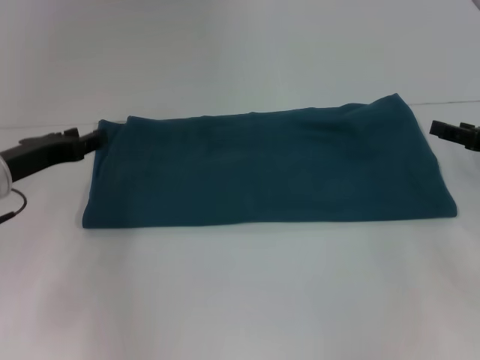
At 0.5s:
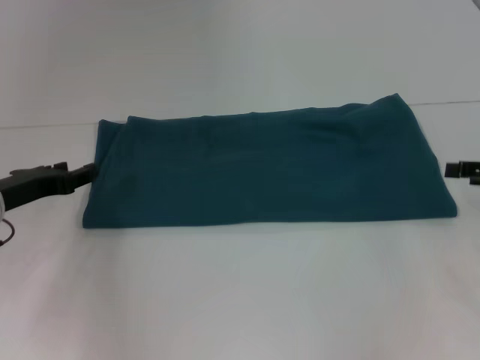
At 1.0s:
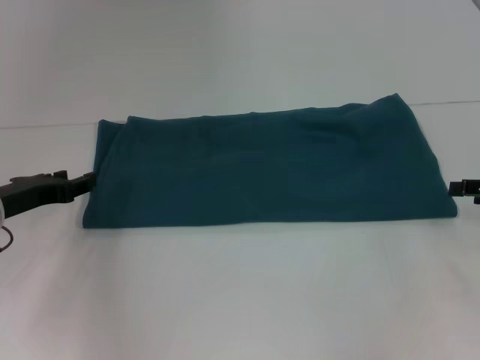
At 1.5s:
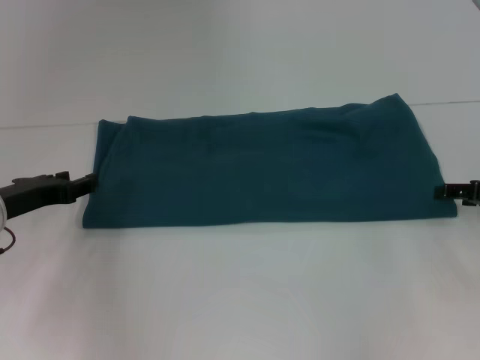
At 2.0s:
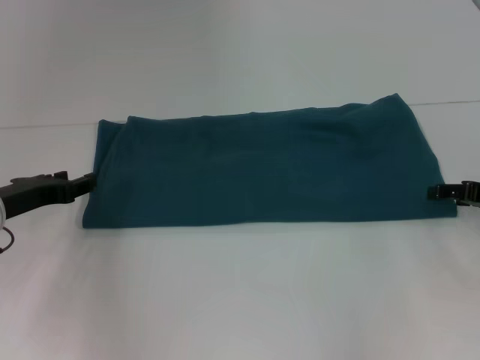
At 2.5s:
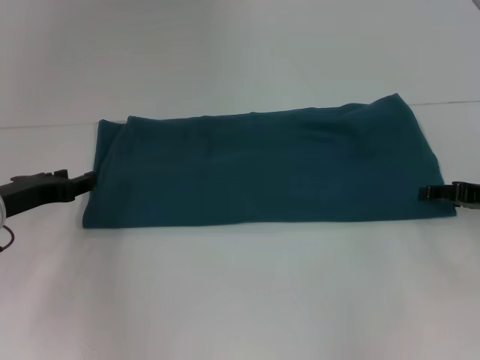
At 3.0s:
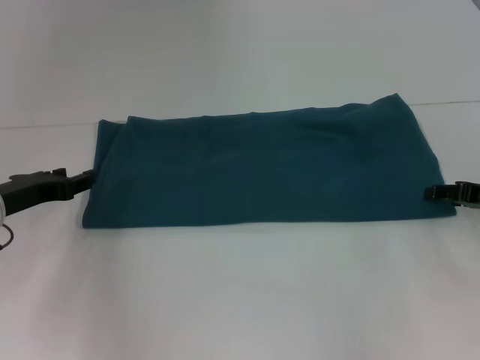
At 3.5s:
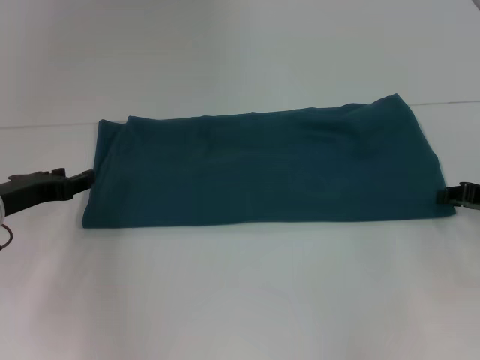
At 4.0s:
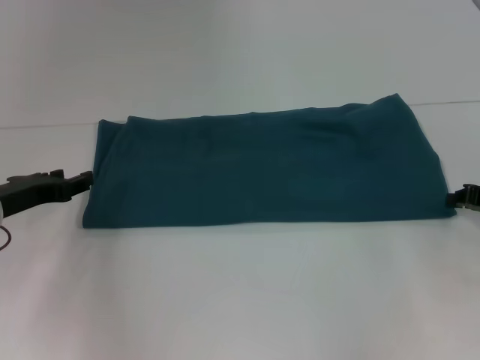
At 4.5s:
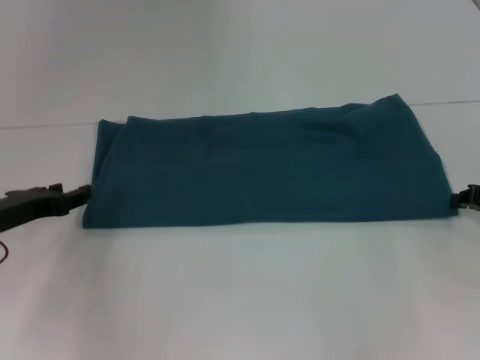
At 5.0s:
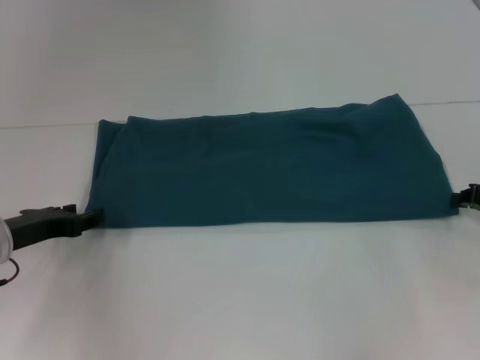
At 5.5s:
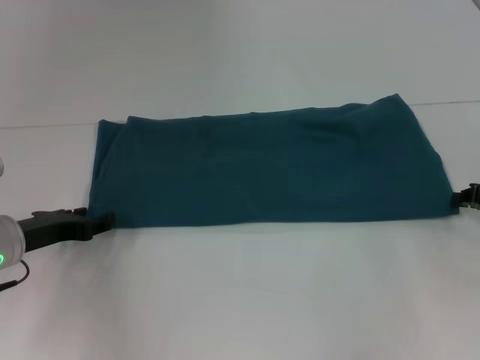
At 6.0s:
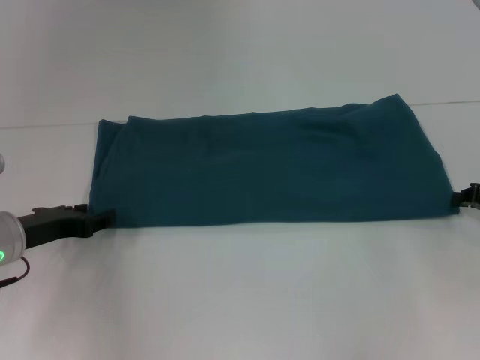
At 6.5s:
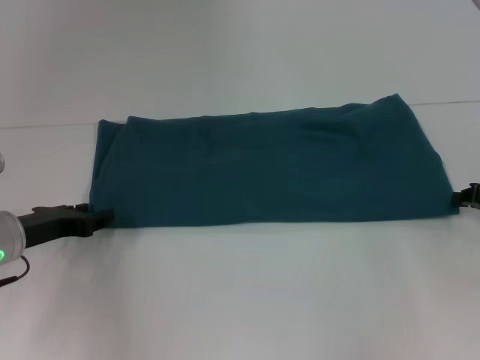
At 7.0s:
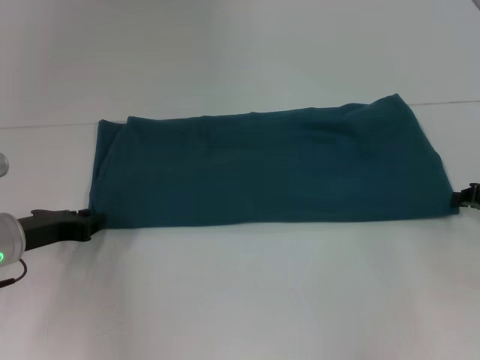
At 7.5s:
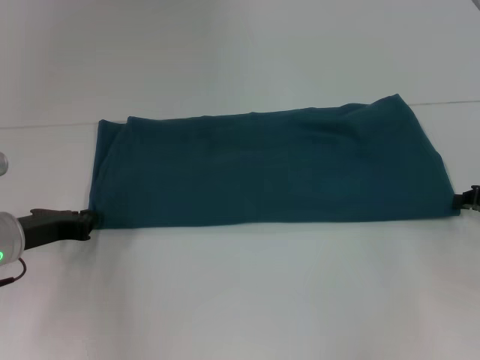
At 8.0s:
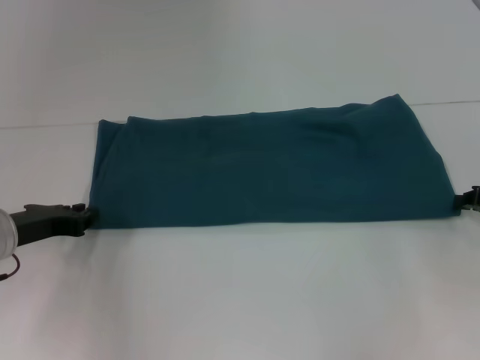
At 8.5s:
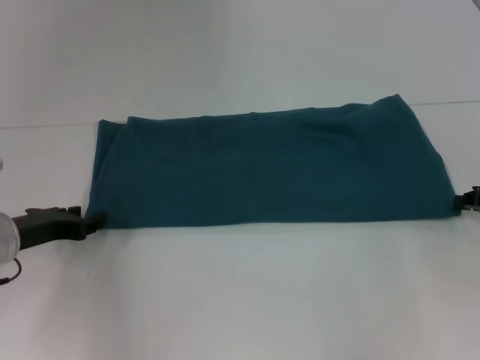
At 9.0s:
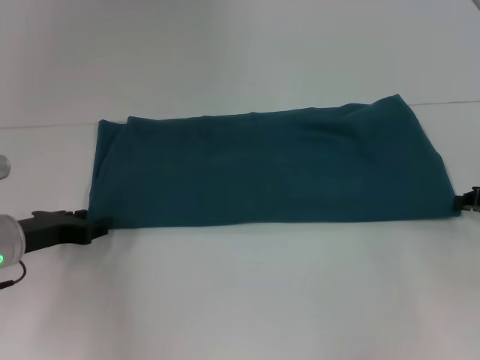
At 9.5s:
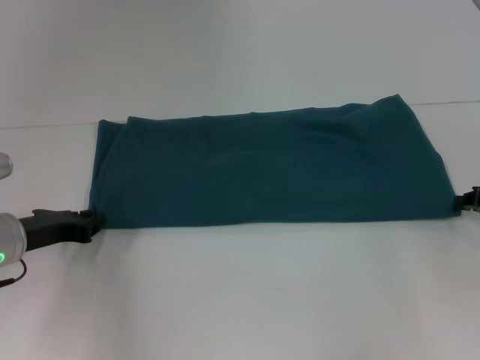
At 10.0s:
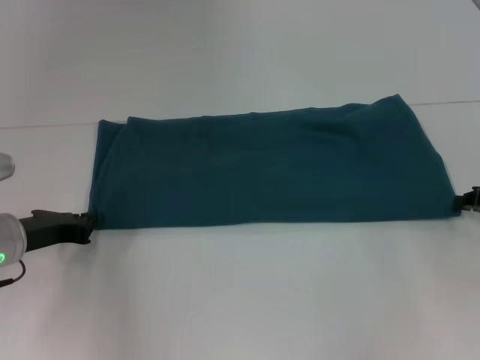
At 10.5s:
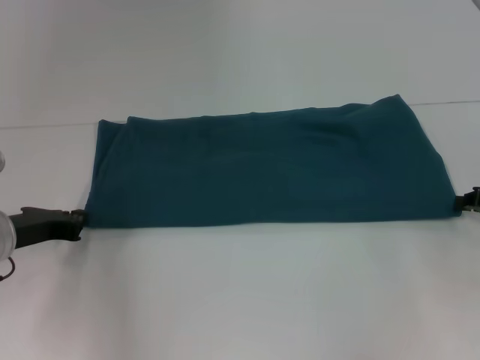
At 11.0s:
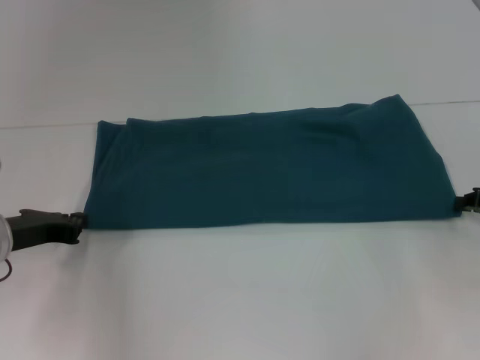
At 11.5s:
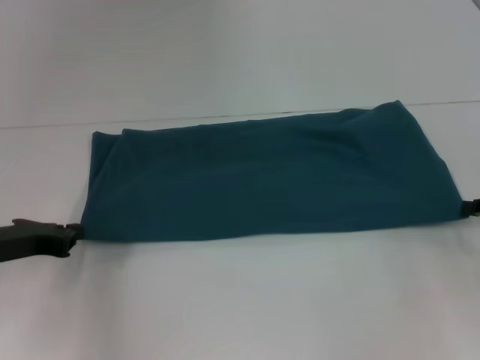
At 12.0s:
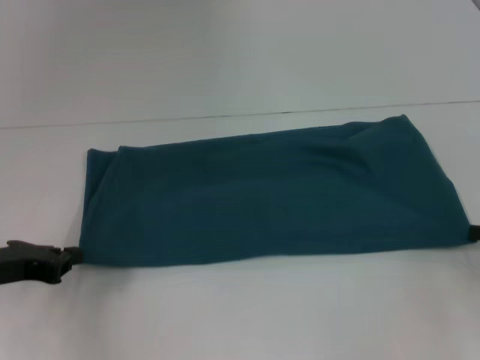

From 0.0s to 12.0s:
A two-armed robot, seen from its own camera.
From 4.0s to 6.0s: The grippers make only small movements.
From 6.0s to 8.0s: The left gripper closes up.
From 8.0s to 10.0s: The left gripper opens and closes again.
From 10.0s to 12.0s: The left gripper changes place by some 5 cm; the right gripper is displaced backward by approximately 5 cm.

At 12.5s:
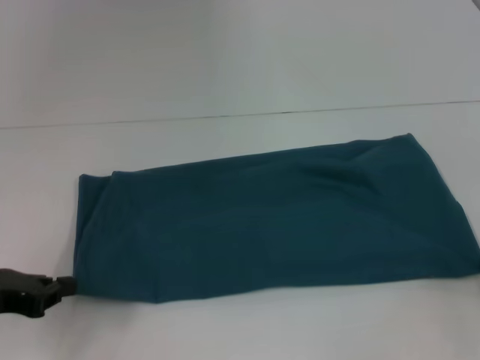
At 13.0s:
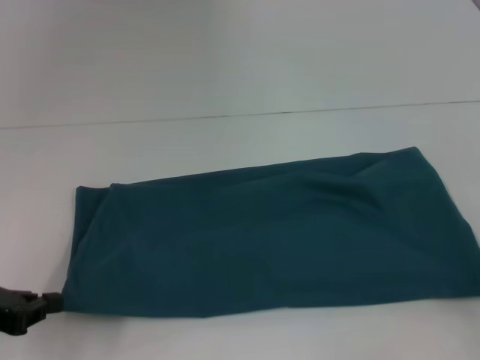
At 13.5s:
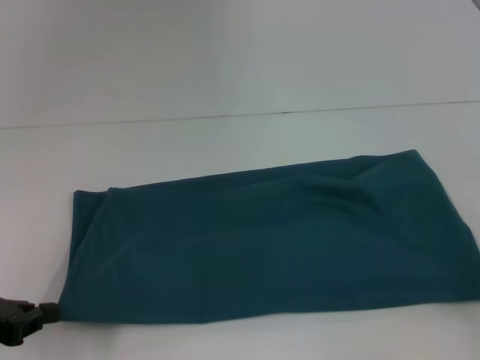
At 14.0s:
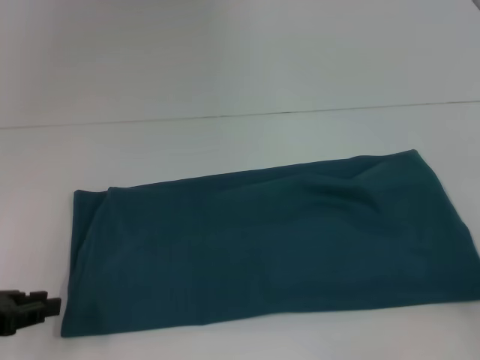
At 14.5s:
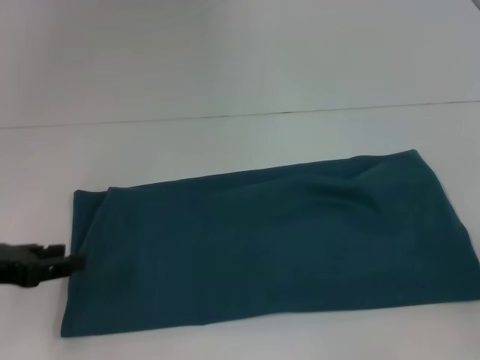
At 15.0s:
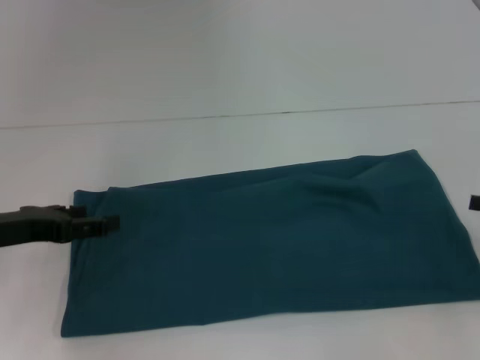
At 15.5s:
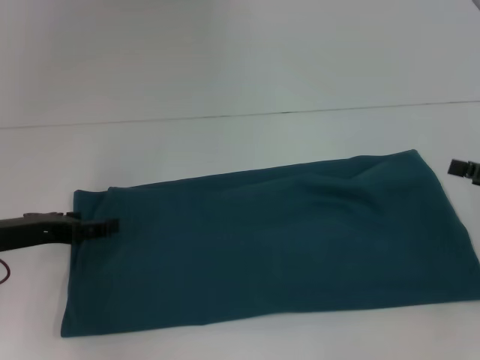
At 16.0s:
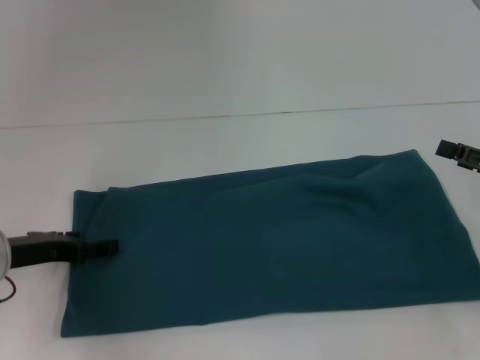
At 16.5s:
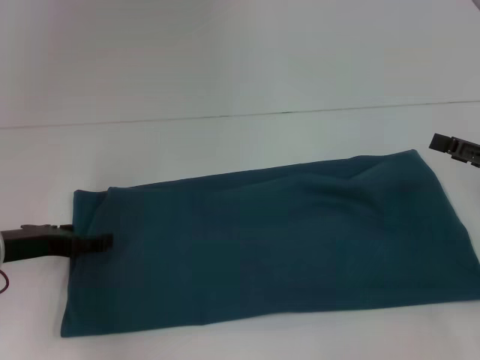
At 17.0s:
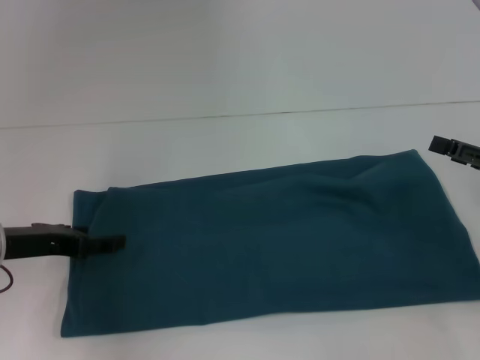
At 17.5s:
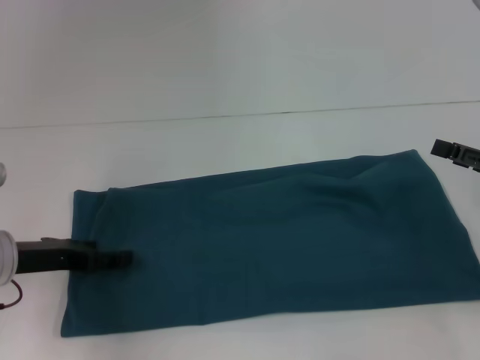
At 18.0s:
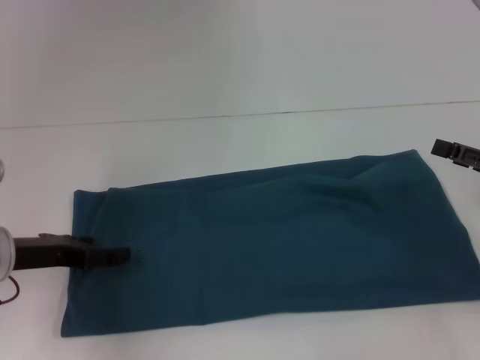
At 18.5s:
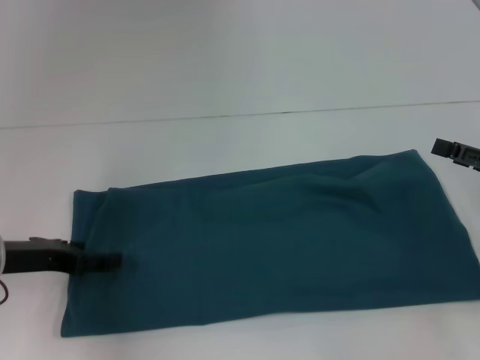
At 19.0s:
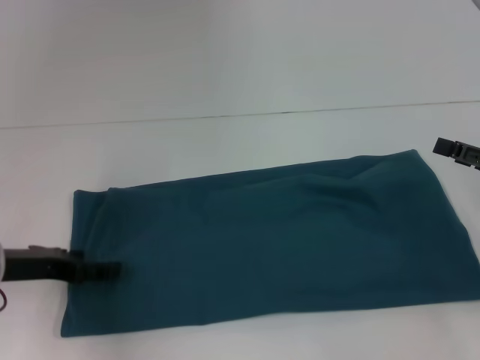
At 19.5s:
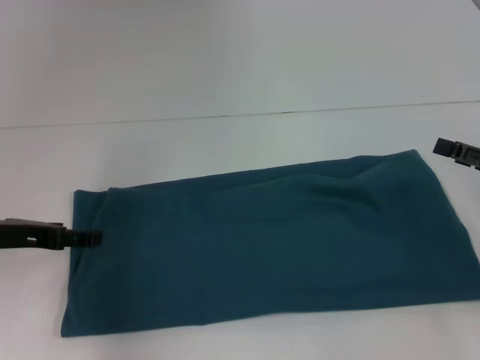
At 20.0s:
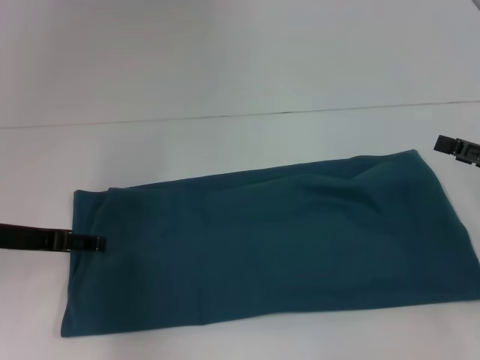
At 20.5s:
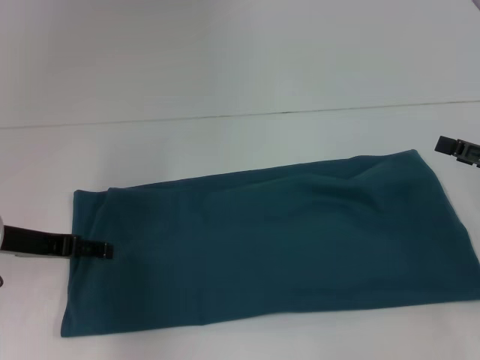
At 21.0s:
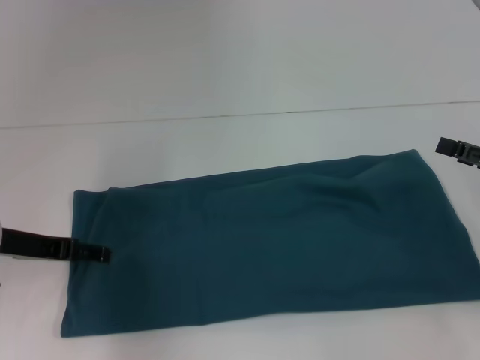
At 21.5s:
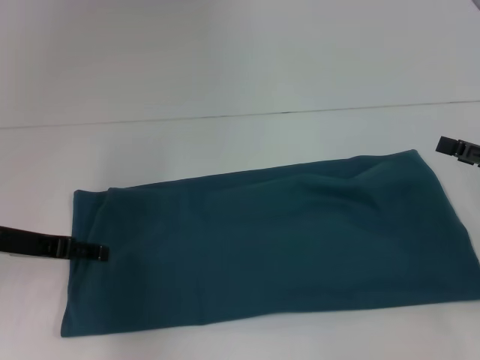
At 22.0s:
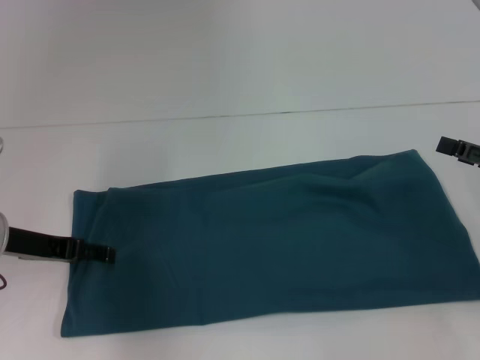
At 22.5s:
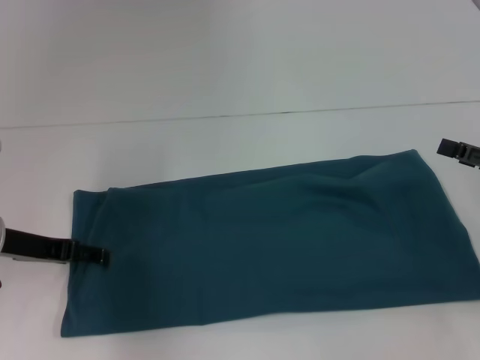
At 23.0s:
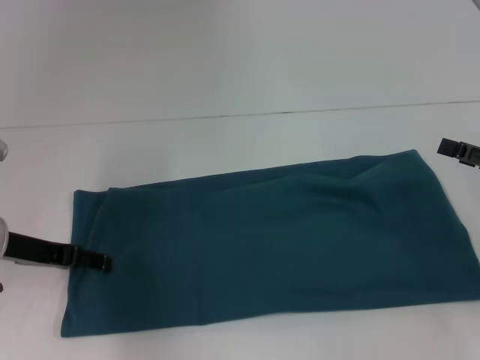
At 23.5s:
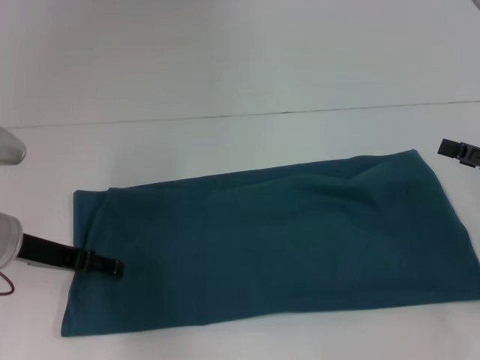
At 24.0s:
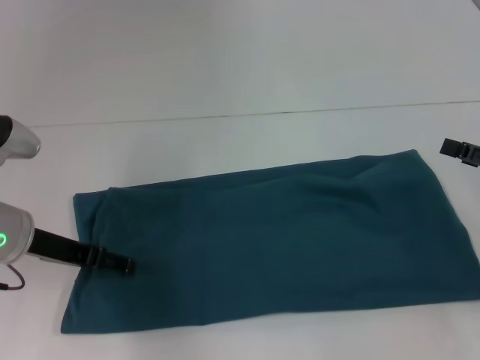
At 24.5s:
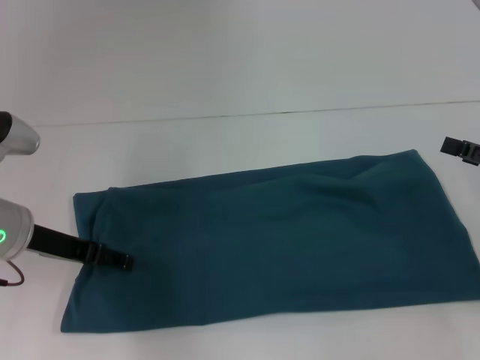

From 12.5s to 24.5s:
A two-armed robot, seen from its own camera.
From 12.5s to 14.5s: The left gripper opens its fingers.
From 14.5s to 16.5s: The left gripper moves roughly 5 cm, and opens.
From 16.5s to 20.5s: There are only small adjustments of the grippers.
From 20.5s to 22.5s: Neither gripper changes place.
From 22.5s to 24.5s: The grippers stay close to where they were, moving slightly.

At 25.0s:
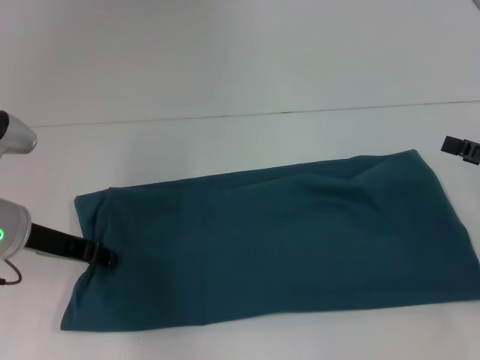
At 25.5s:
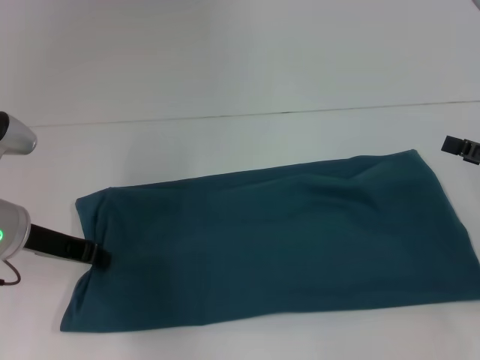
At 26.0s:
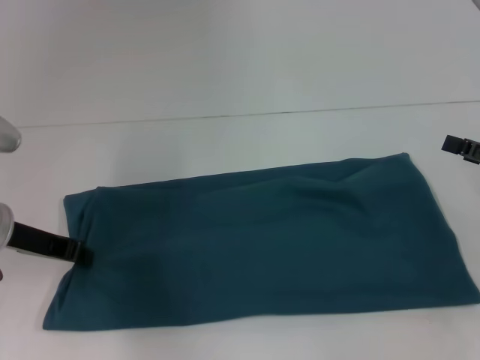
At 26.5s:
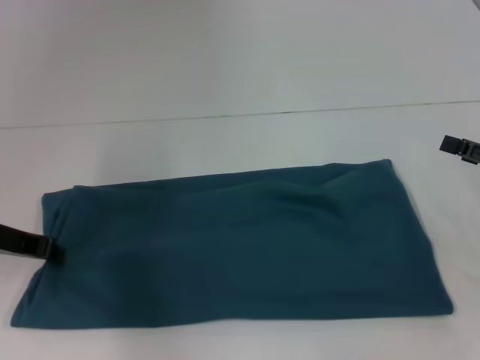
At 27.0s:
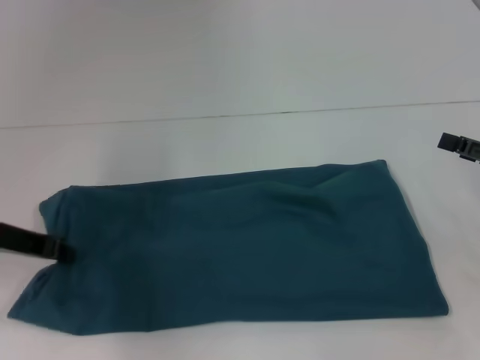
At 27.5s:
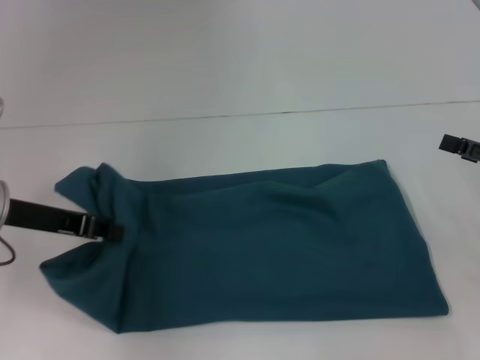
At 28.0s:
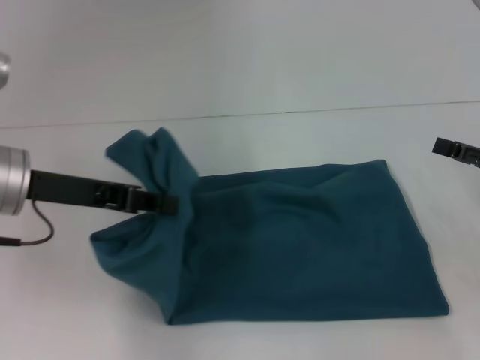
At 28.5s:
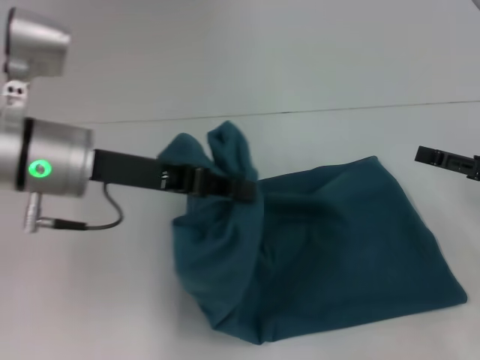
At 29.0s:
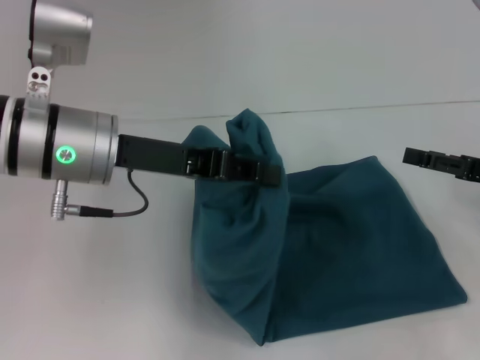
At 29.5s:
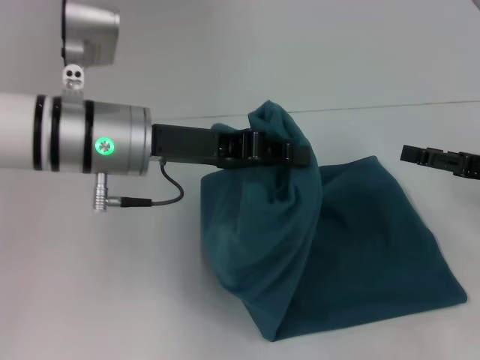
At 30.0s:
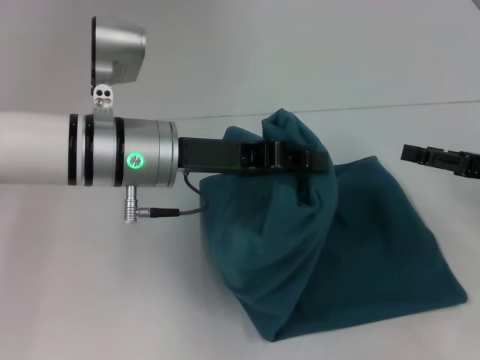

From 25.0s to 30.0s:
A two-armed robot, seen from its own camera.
From 25.0s to 27.5s: The left gripper closes.
From 27.5s to 30.0s: The left gripper is displaced to the right by some 15 cm.
